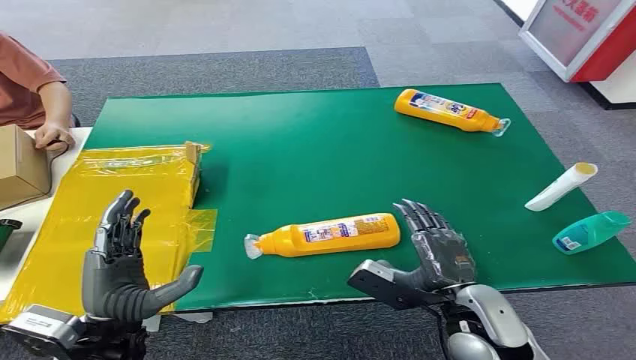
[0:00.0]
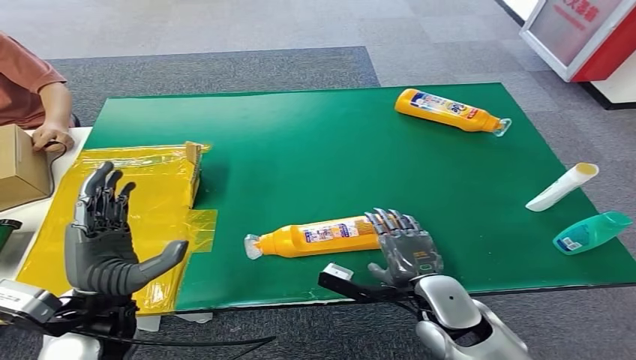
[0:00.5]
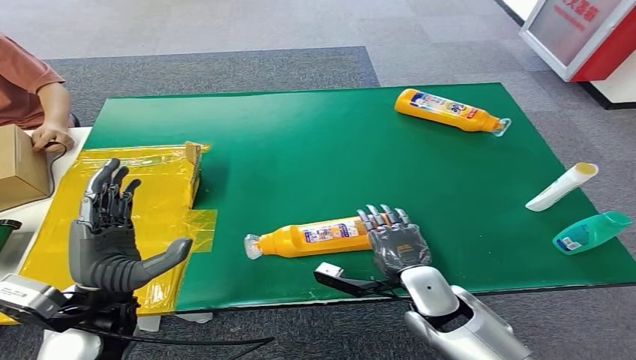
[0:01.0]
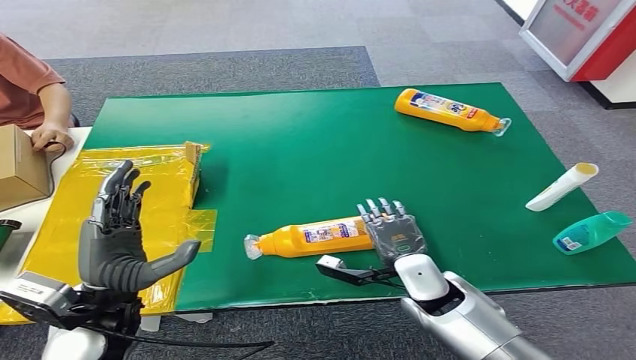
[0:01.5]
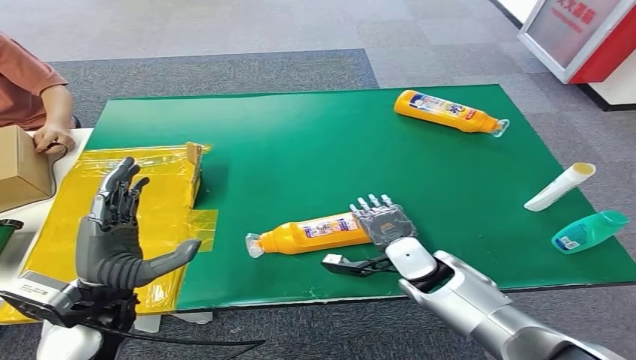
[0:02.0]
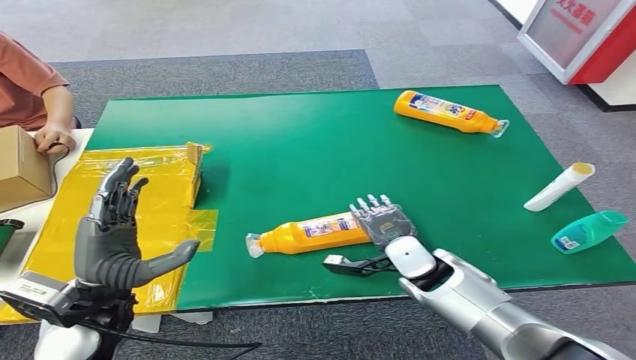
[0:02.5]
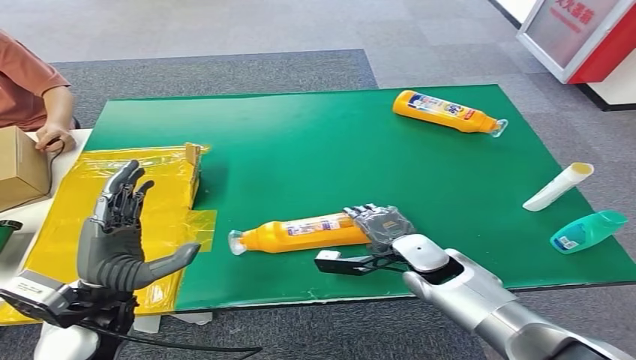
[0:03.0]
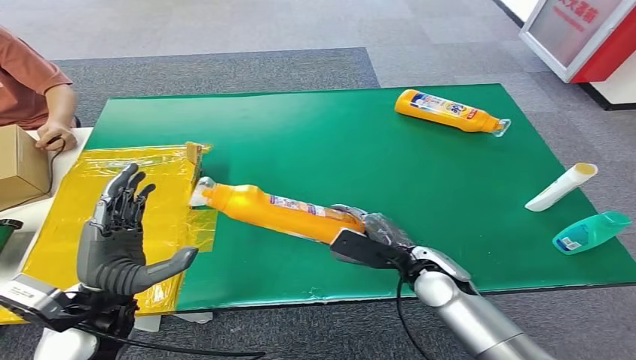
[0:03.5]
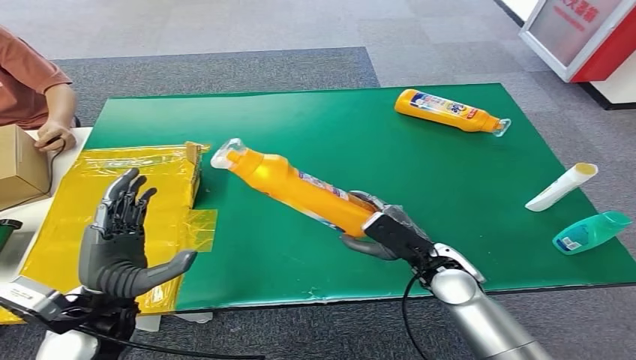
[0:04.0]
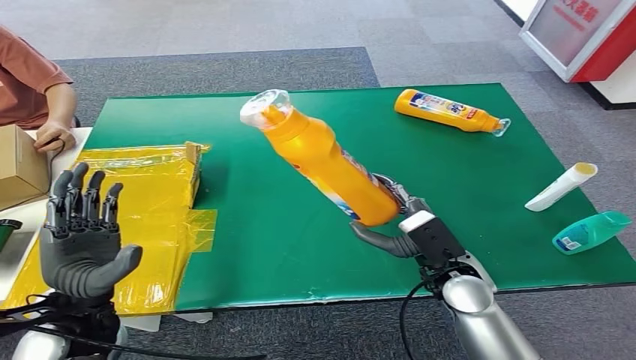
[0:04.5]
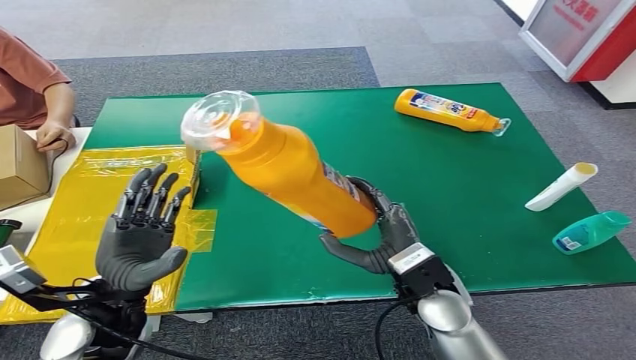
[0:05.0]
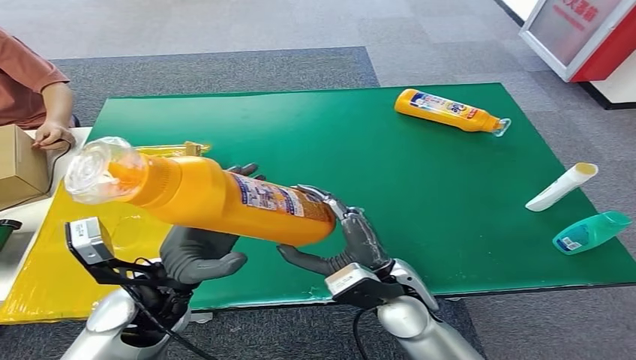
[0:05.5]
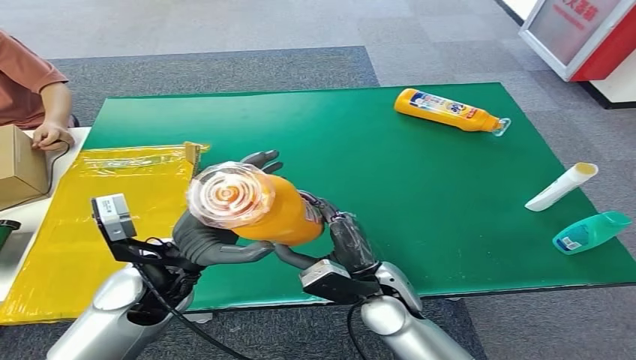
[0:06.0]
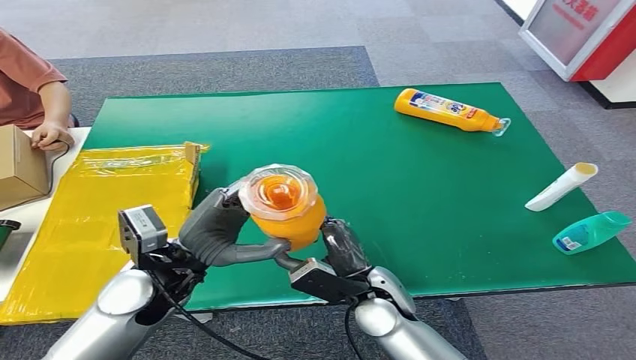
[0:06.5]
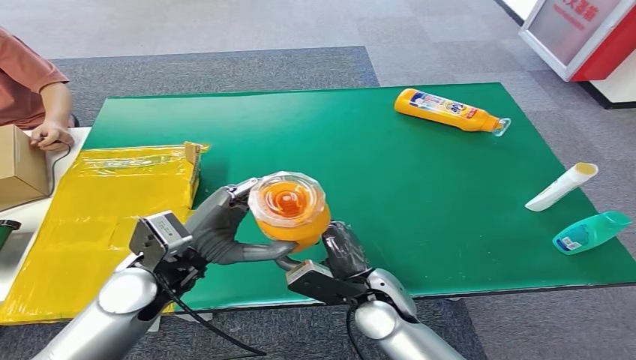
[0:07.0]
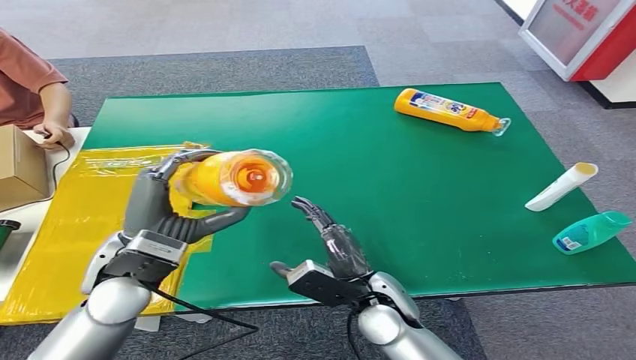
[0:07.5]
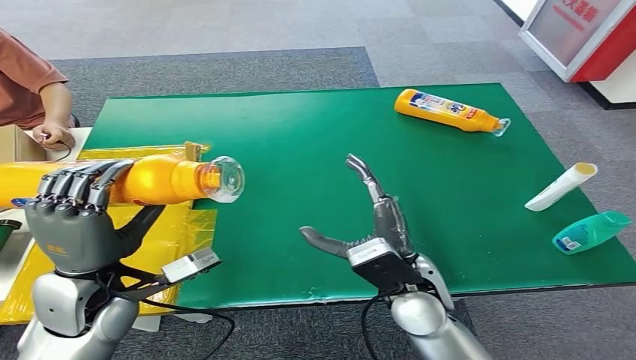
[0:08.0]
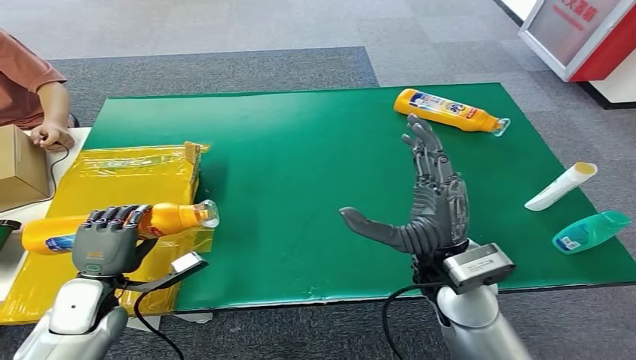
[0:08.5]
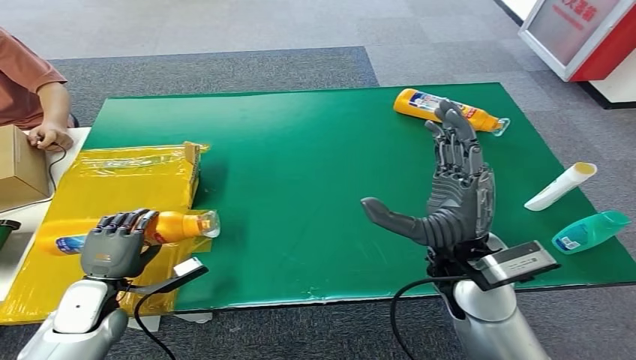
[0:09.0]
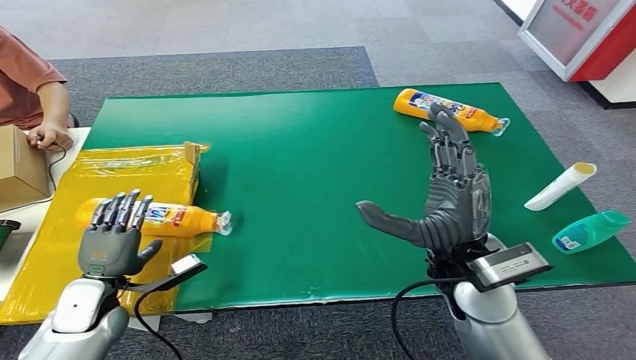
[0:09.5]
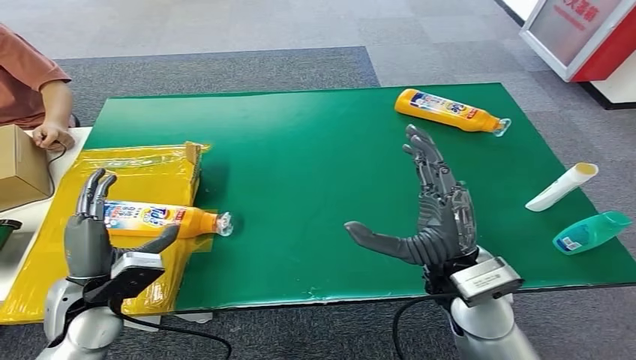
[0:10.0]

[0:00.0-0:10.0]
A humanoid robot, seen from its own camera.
Step, 0:00.0 to 0:04.5: Pick up the bottle from the table.
Step, 0:05.0 to 0:10.0: Turn the bottle to the front side.
0:08.0 to 0:10.0: The left hand goes roughly 10 cm downward, while the right hand shifts approximately 5 cm upward.
